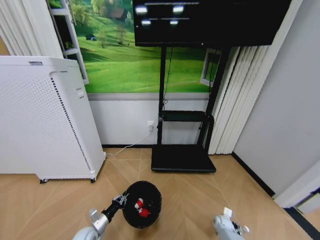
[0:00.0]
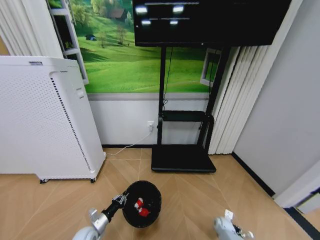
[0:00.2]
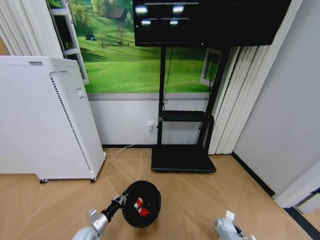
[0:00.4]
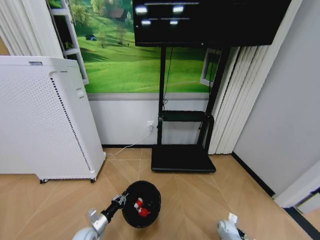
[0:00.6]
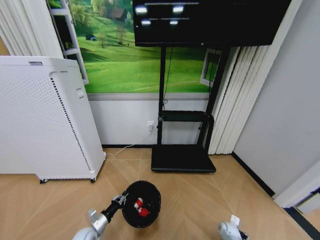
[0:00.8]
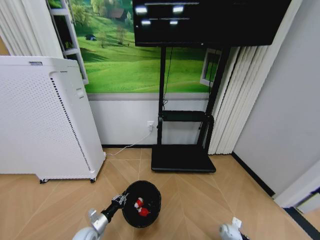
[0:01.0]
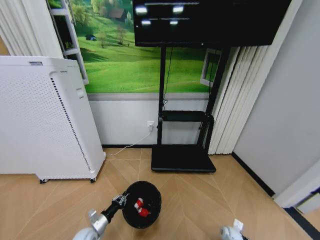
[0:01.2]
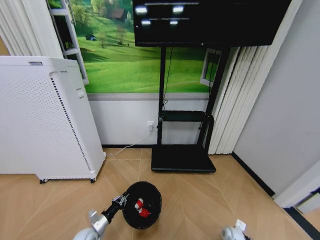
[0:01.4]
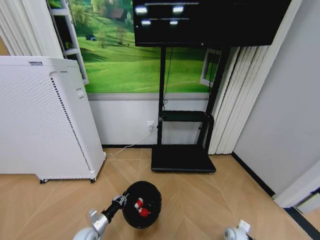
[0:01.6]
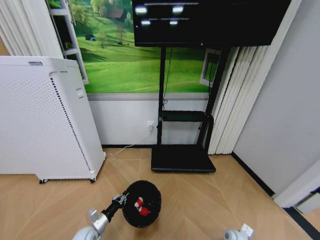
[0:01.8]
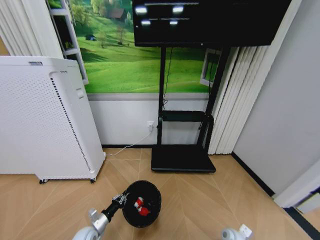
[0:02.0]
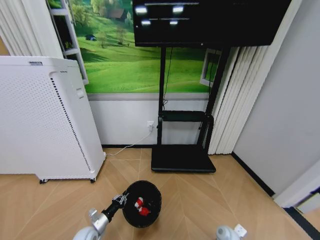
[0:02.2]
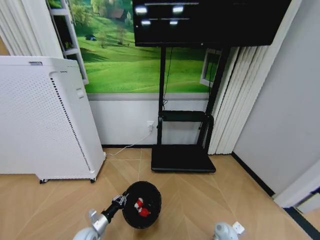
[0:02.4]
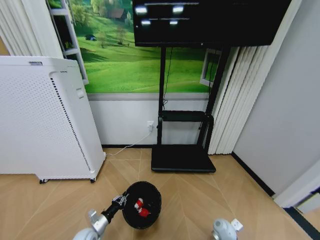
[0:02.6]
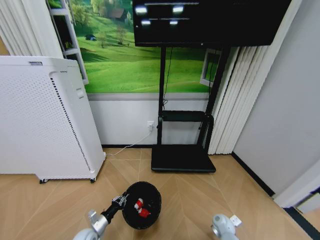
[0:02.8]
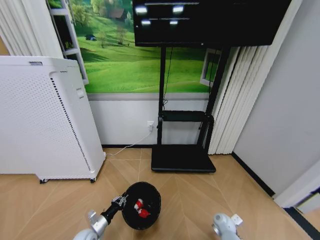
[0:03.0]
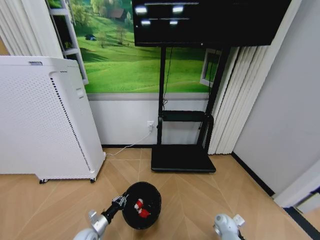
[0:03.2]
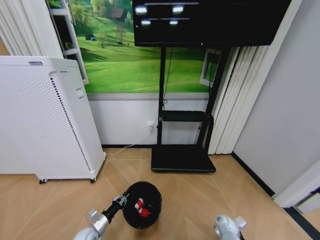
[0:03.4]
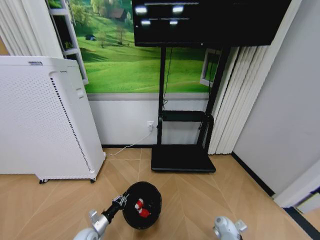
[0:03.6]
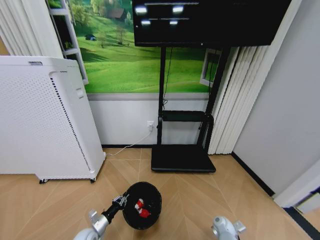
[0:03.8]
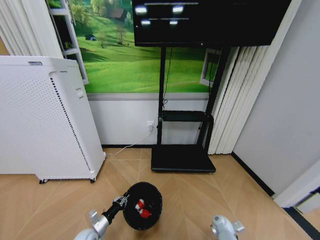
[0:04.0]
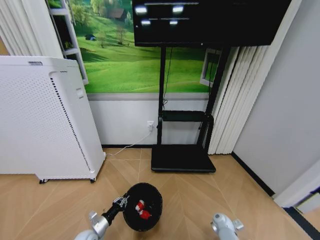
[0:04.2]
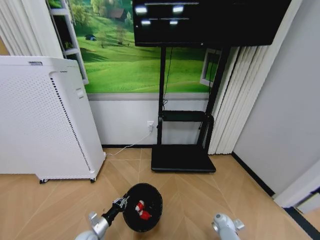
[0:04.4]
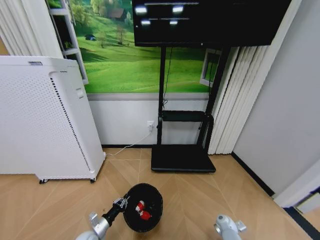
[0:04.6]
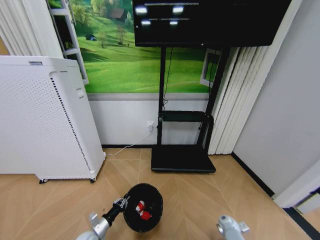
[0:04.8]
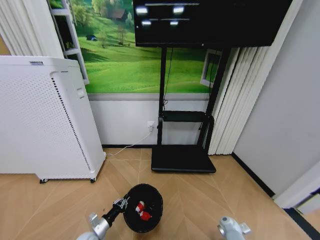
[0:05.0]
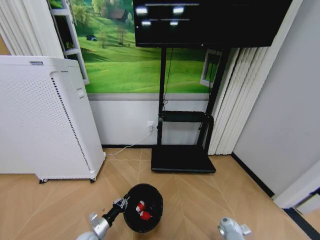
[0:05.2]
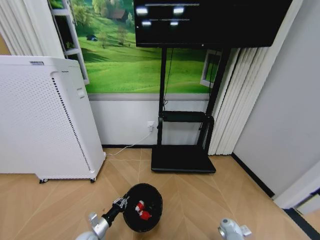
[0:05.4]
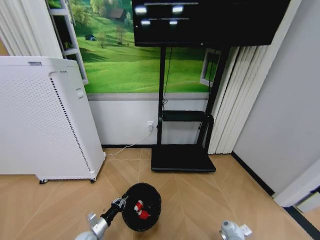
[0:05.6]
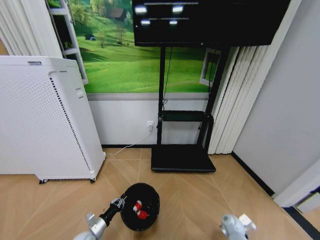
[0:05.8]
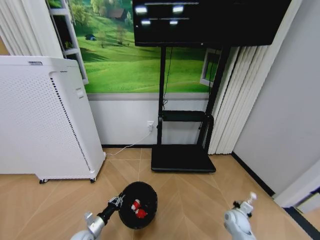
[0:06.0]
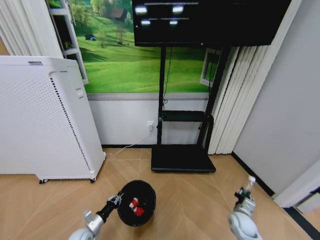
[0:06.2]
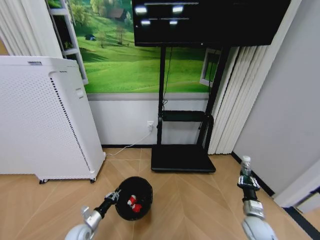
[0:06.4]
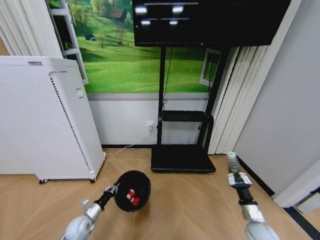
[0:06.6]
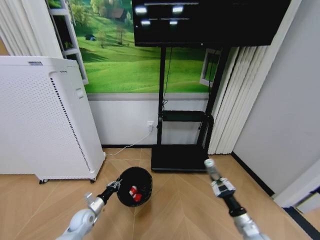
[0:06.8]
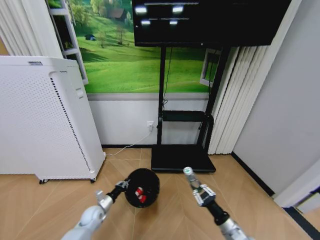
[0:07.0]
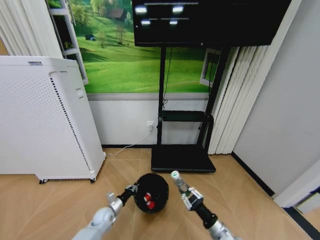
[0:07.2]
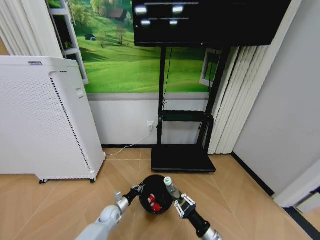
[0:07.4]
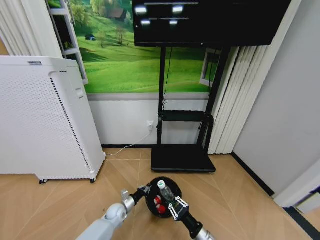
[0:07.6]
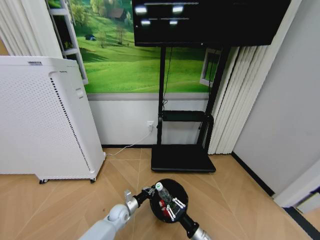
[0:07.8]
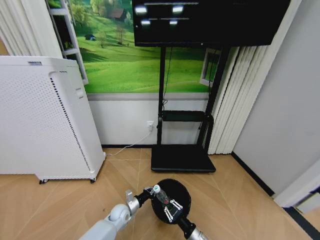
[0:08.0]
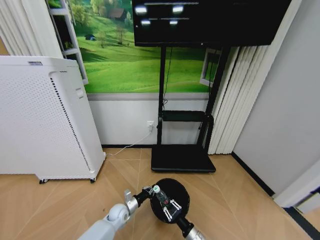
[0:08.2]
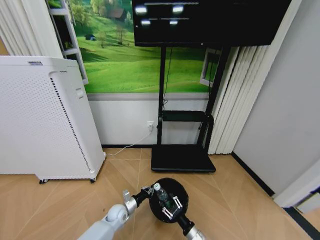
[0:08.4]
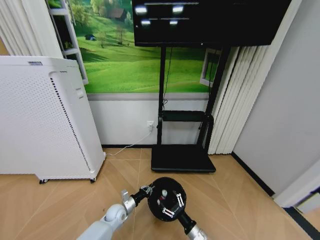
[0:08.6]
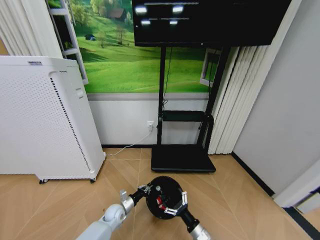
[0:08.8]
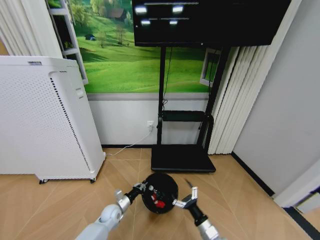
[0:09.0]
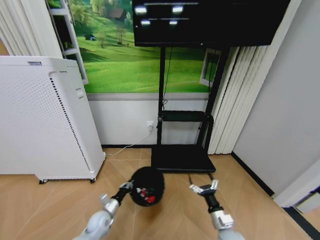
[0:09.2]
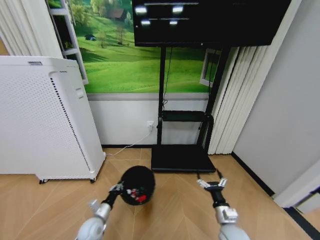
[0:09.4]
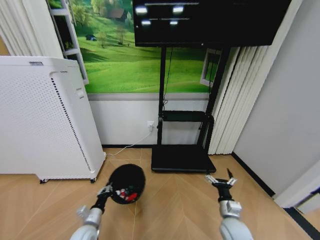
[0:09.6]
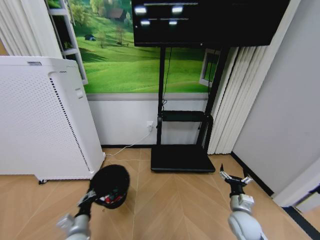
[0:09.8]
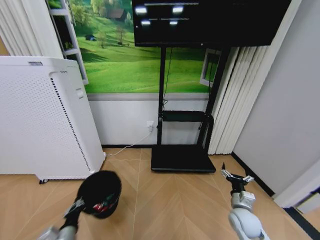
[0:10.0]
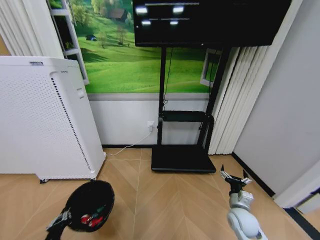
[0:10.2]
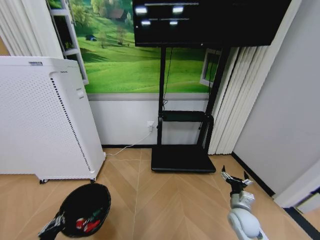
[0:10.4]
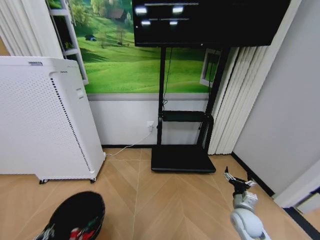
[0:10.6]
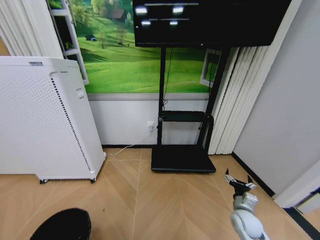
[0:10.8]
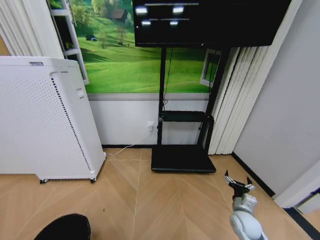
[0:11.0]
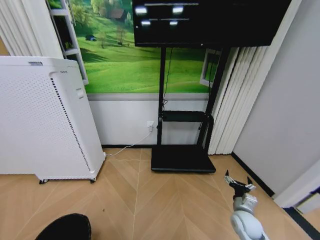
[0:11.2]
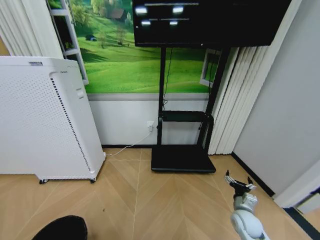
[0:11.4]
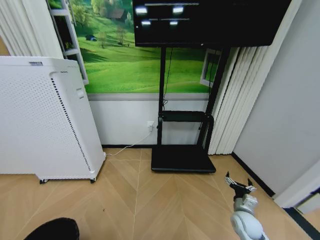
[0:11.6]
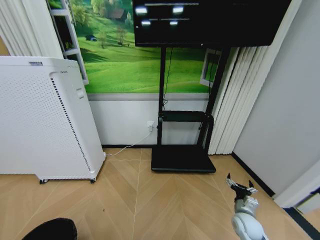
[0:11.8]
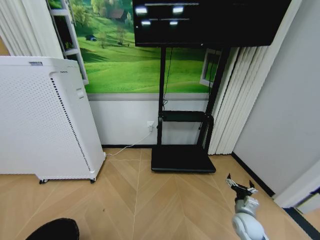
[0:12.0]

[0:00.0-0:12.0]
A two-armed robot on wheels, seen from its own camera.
Task of the whole recording: Pick up the trash bin and place the garbage on the floor into it.
0:00.0 to 0:01.6: The right gripper travels backward by roughly 5 cm.
0:01.6 to 0:03.0: The right gripper moves forward, some 5 cm.
0:03.0 to 0:04.4: The grippers move only a little.
0:04.4 to 0:06.0: The right gripper goes some 10 cm upward, and closes.
0:06.0 to 0:07.6: The left gripper goes roughly 15 cm forward and to the right, while the right gripper moves to the left and backward, some 20 cm.
0:07.6 to 0:09.0: The right gripper opens.
0:09.0 to 0:10.4: The right gripper goes some 15 cm to the right and forward. Meanwhile the left gripper heads backward, to the left and upward, covering approximately 35 cm.
0:10.4 to 0:12.0: The left gripper is displaced backward, to the left and downward by approximately 15 cm.

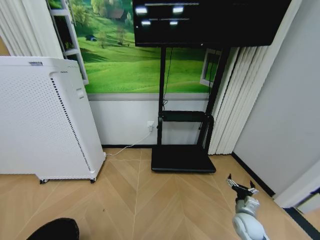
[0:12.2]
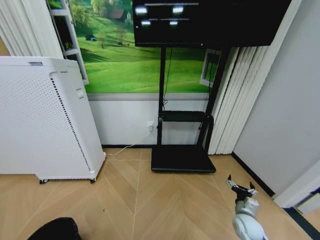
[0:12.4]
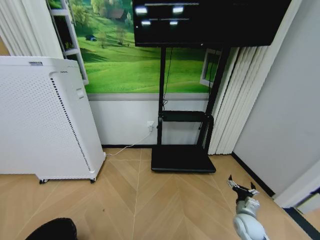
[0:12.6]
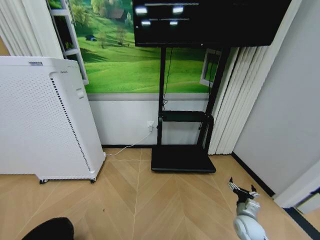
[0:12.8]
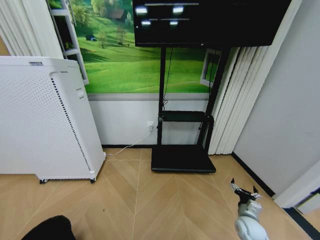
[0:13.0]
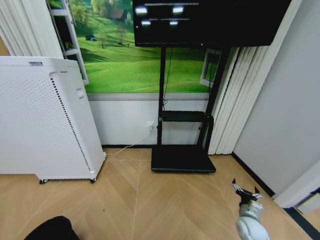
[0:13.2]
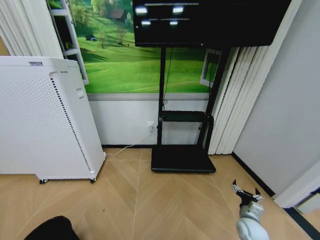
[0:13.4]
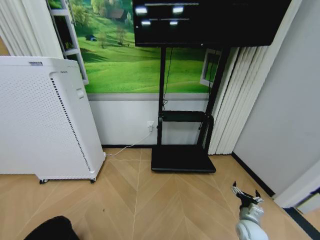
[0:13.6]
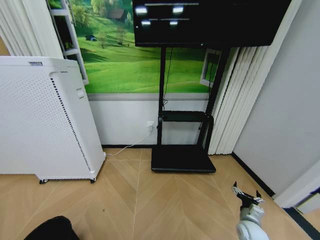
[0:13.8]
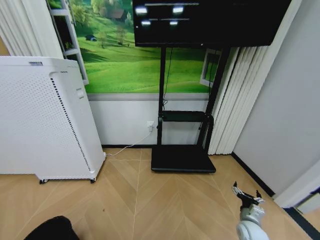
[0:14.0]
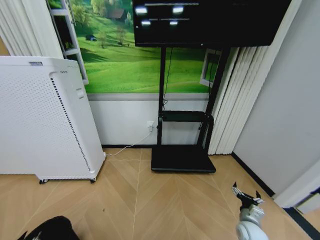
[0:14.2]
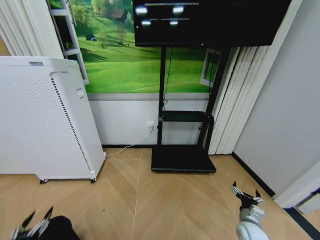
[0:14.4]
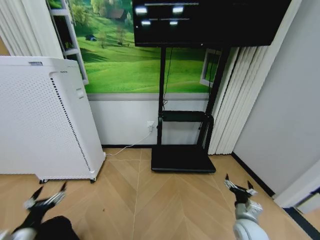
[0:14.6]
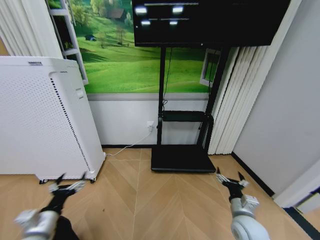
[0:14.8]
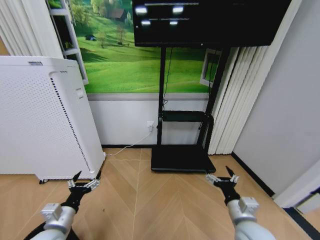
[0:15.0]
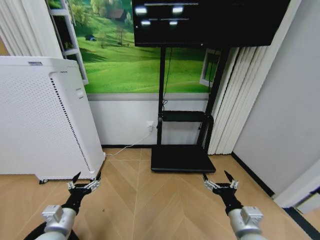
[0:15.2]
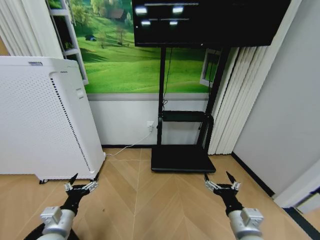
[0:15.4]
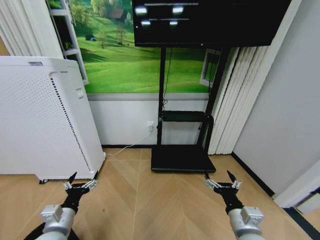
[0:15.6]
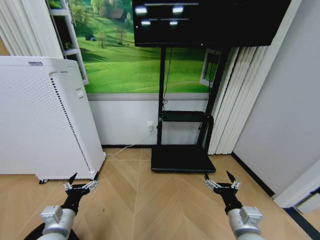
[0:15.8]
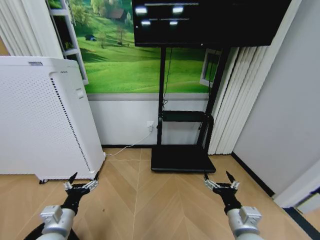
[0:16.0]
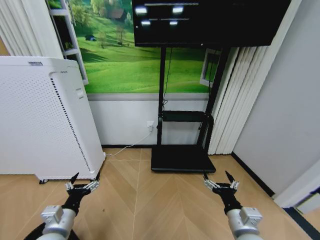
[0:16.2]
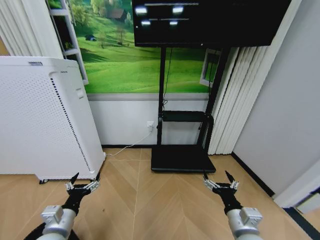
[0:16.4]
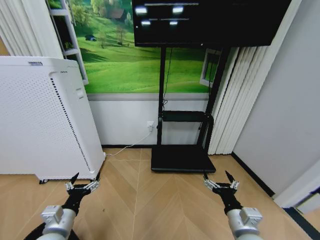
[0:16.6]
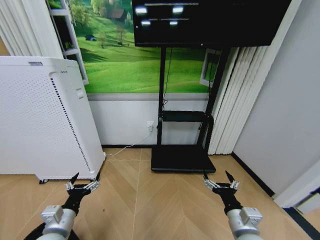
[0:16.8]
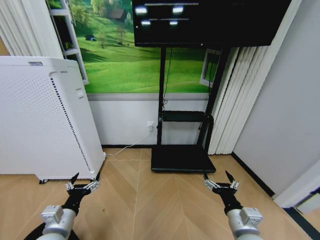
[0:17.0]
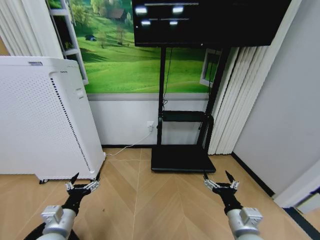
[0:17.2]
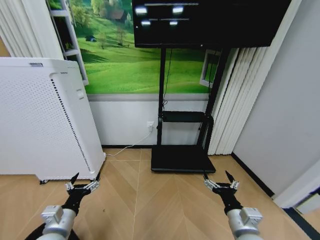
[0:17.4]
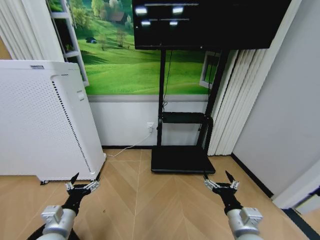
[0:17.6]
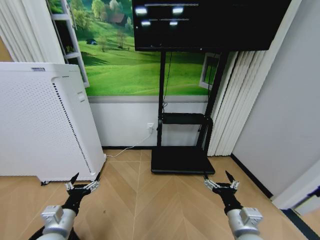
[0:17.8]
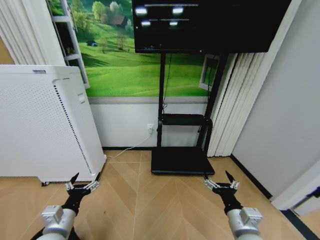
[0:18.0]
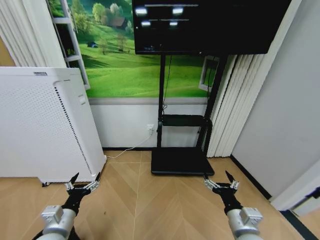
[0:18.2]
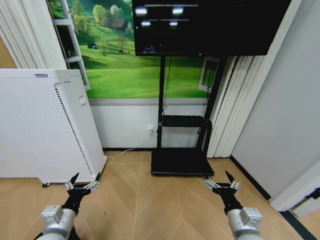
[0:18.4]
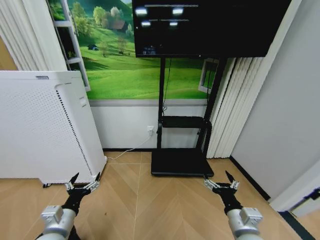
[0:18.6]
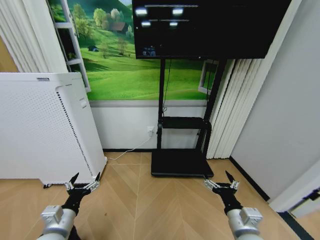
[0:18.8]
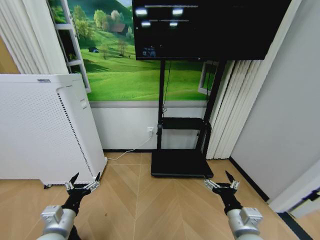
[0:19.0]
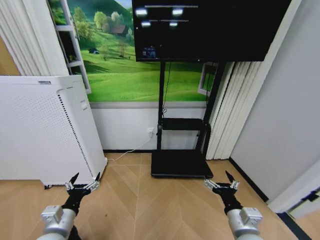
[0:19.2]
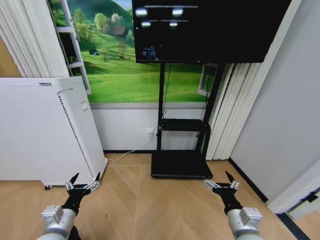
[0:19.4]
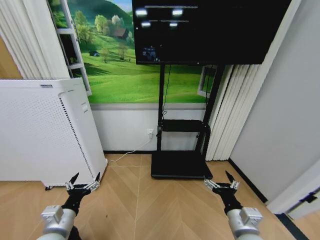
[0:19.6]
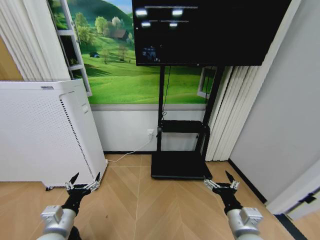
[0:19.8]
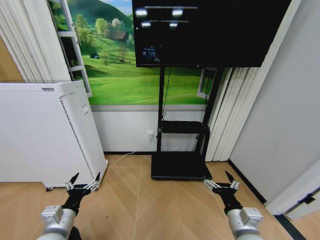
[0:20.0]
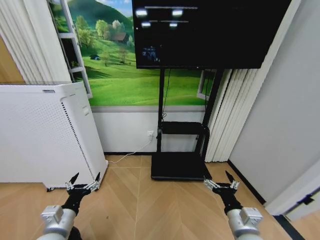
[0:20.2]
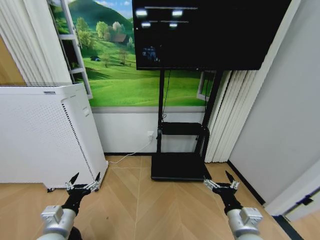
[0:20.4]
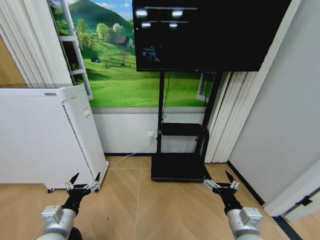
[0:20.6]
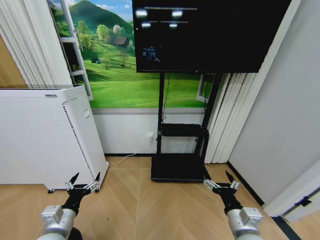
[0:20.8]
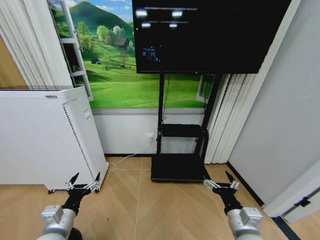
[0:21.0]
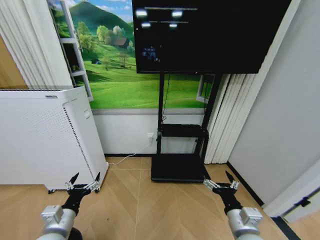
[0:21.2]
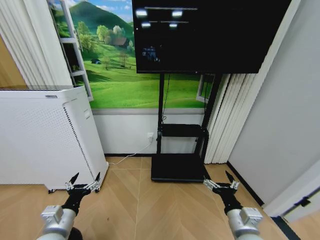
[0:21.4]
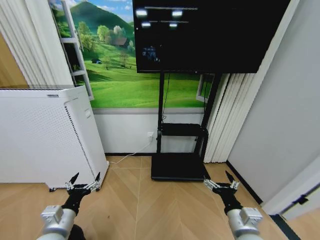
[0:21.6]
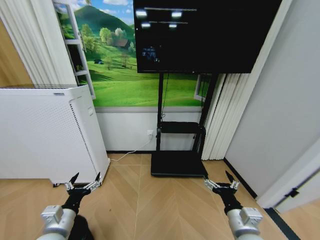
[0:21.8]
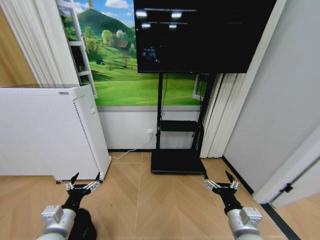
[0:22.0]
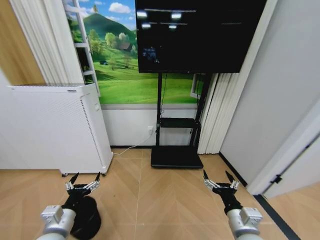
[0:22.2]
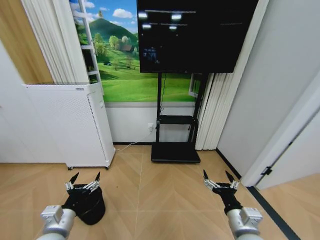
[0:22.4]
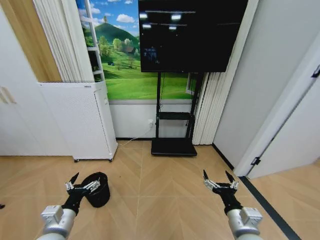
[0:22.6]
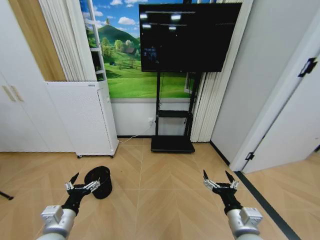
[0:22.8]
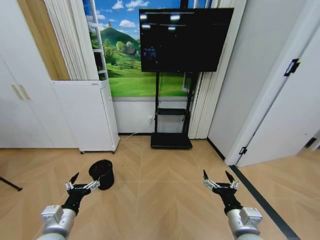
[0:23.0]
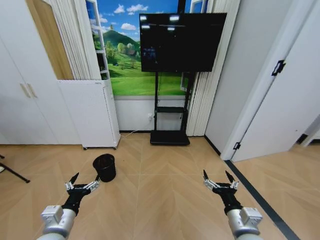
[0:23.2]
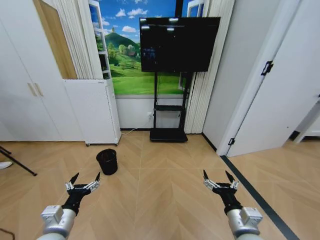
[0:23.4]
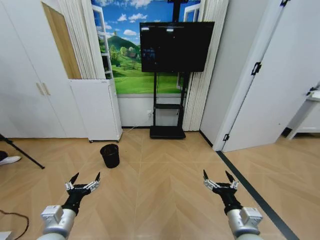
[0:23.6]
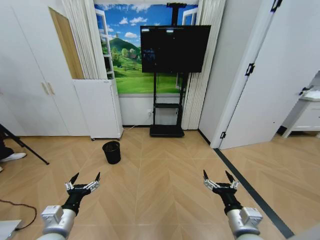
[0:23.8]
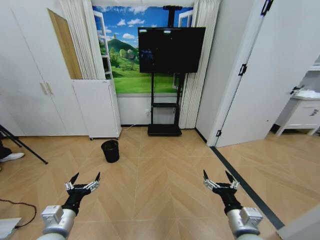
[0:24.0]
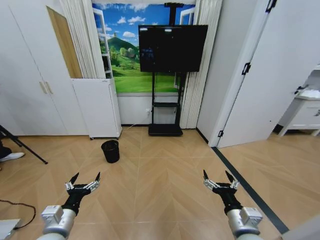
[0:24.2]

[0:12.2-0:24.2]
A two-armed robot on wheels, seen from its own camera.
Task of the whole recording: Pick up the trash bin and place the garbage on the floor into it.
0:13.8 to 0:15.2: The right gripper goes about 25 cm upward, to the left and backward; the left gripper goes roughly 30 cm forward, to the right and upward.
0:15.2 to 0:16.6: The grippers move only a little.
0:16.6 to 0:21.2: The two grippers keep their place.
